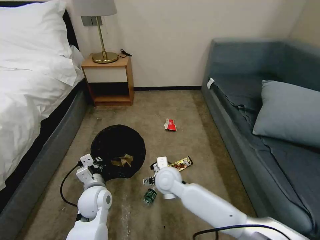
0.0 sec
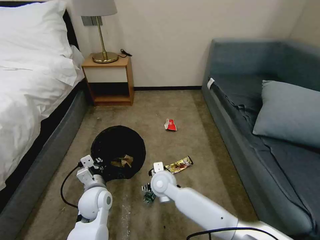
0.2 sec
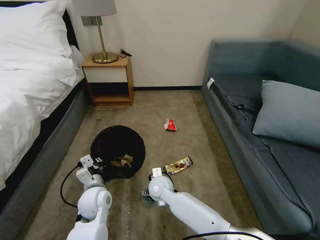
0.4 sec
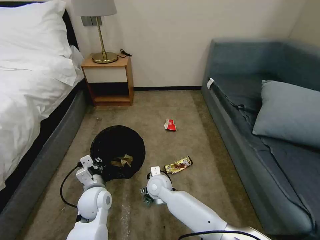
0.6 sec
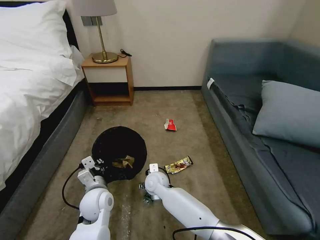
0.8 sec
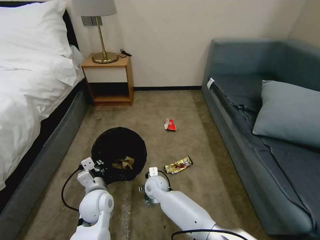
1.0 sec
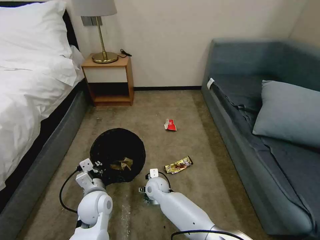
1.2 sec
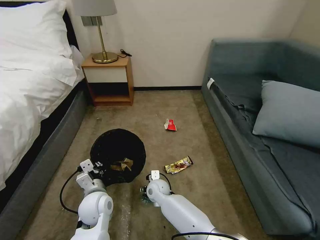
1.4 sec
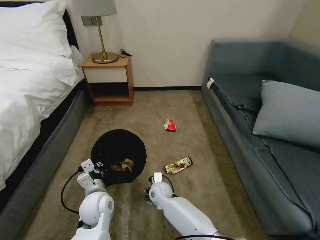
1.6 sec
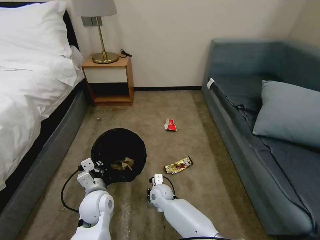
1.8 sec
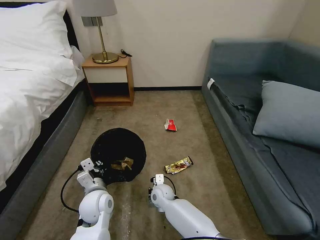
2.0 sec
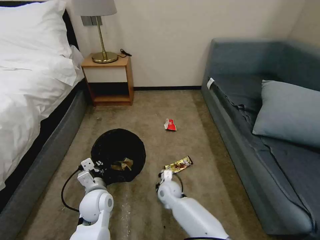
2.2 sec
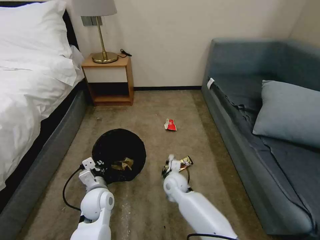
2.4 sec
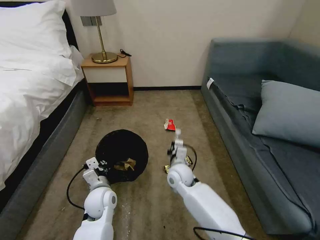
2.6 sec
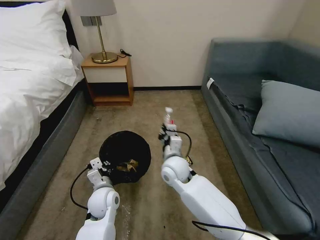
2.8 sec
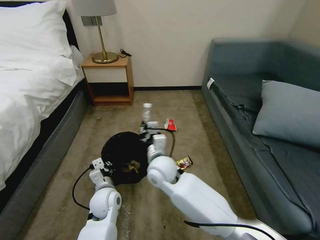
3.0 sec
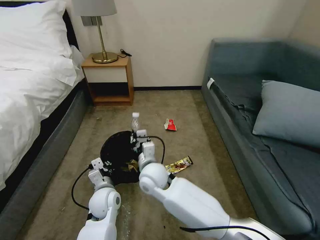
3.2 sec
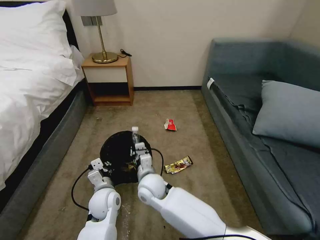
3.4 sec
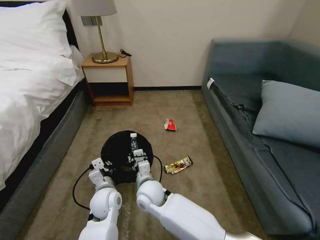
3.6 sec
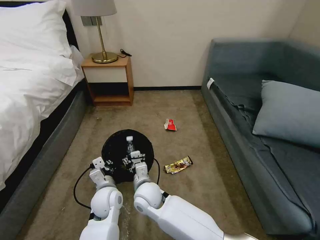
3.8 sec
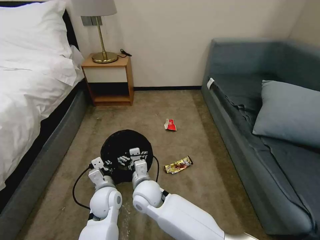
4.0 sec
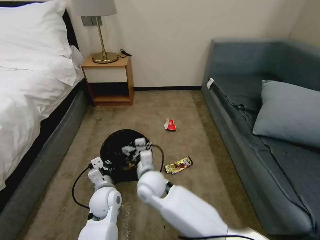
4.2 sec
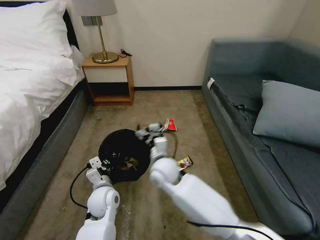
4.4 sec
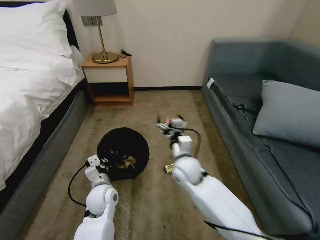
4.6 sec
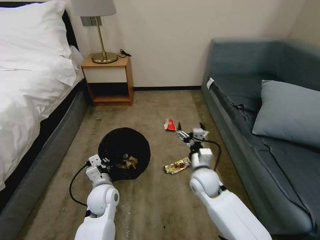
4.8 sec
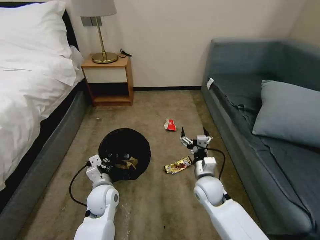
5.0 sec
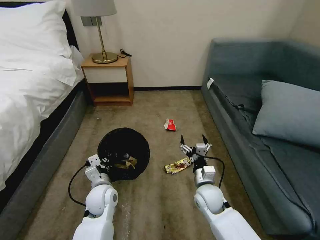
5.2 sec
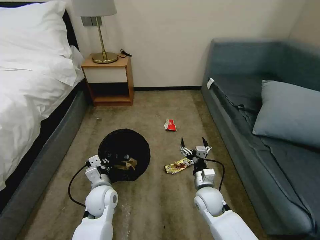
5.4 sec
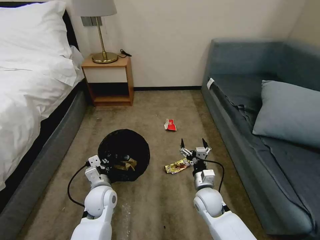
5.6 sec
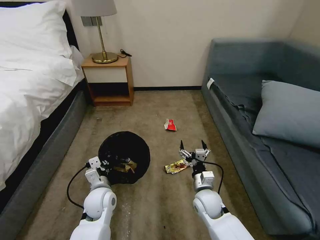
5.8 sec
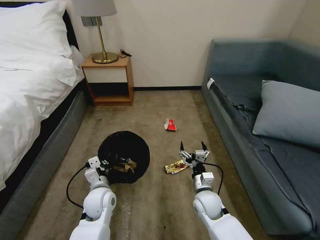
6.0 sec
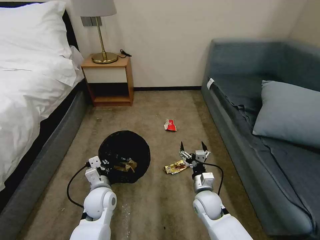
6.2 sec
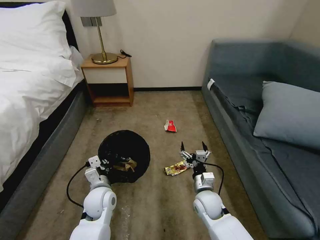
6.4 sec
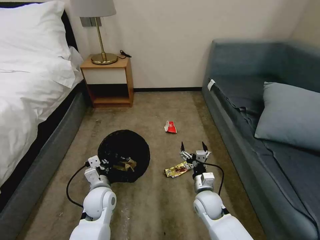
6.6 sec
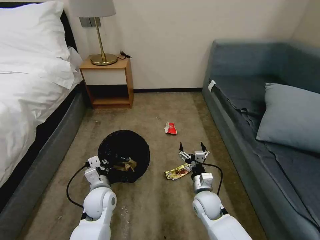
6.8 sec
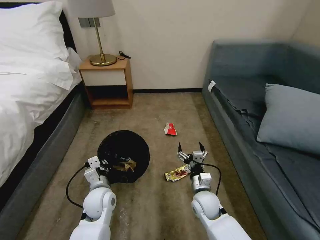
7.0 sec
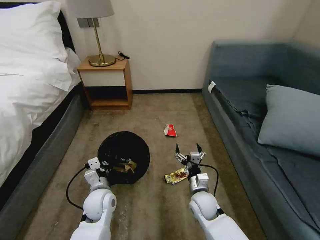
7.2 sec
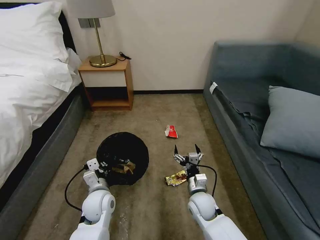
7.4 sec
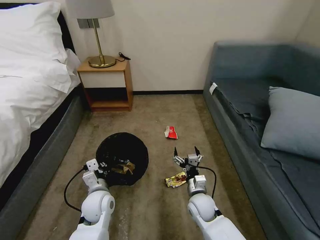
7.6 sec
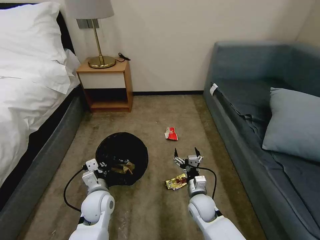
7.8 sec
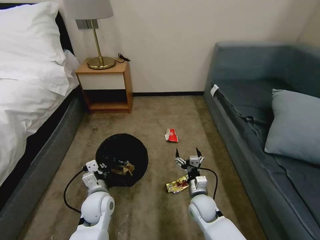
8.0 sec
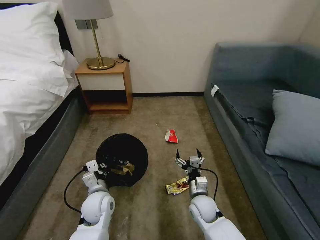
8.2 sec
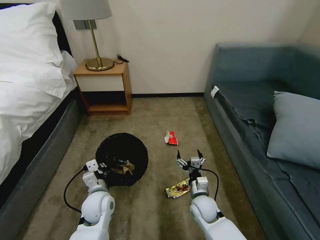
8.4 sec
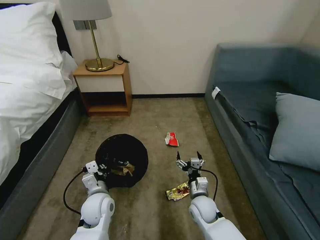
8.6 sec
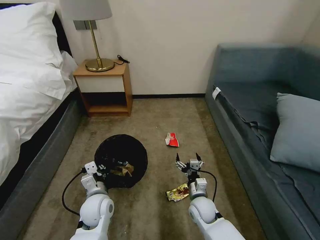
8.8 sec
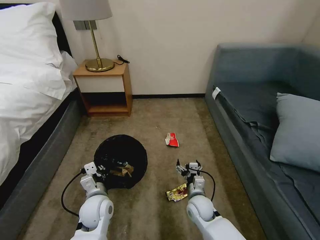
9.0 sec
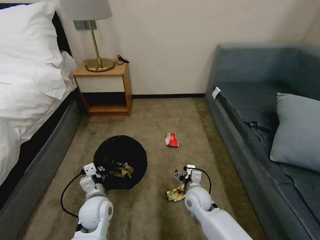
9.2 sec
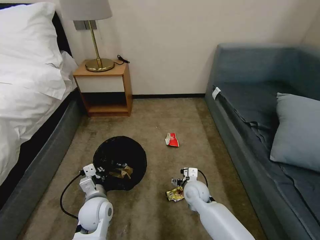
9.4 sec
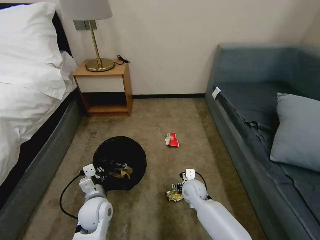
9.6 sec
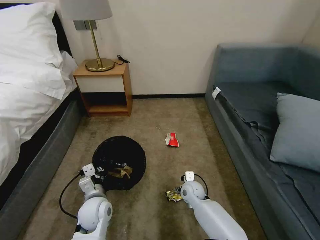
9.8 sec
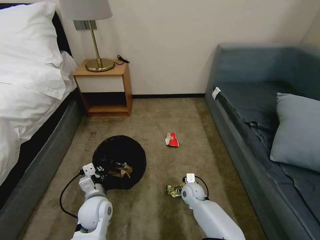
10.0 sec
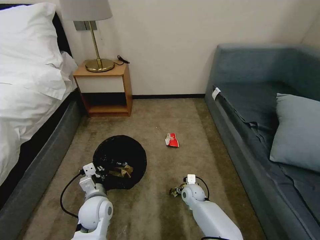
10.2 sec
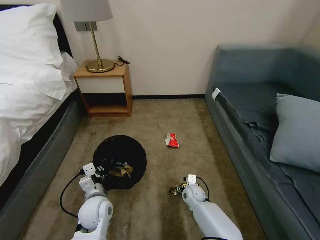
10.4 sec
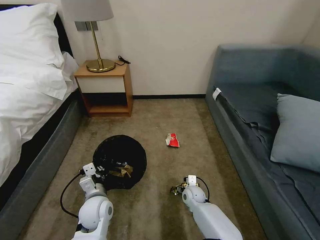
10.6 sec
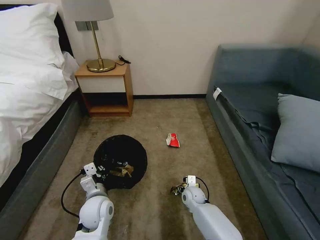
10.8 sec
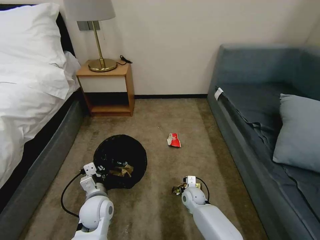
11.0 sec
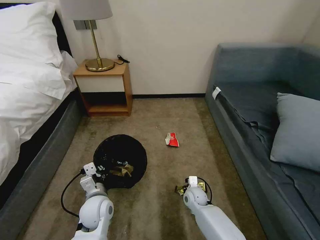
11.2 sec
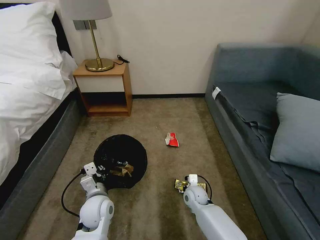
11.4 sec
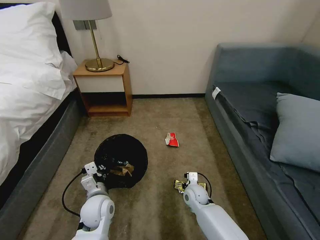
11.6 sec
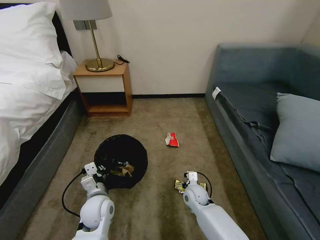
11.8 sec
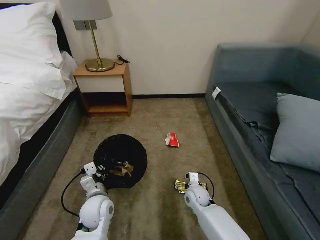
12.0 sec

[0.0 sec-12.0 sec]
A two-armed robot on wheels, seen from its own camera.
Task of the whole recording: Pick up the trash bin, then pick up the garbage on the floor and place it into the trash bin.
0.0 sec to 1.6 sec: The right gripper is displaced downward by some 15 cm, and closes.
1.6 sec to 3.0 sec: The right gripper is displaced upward by about 20 cm, and closes.
3.0 sec to 4.4 sec: The right gripper moves about 10 cm downward and comes back, and opens its fingers.
4.4 sec to 6.0 sec: The right gripper is displaced to the right, downward and backward by approximately 20 cm.
6.0 sec to 7.6 sec: The grippers stay close to where they were, moving slightly.
7.6 sec to 9.0 sec: The grippers make only small movements.
9.0 sec to 10.4 sec: The right gripper heads forward and downward, covering approximately 10 cm.
10.4 sec to 12.0 sec: The right gripper changes place by some 5 cm, and closes.

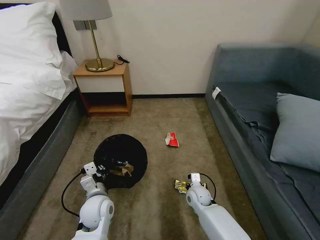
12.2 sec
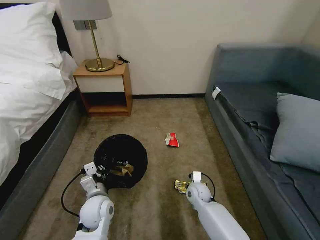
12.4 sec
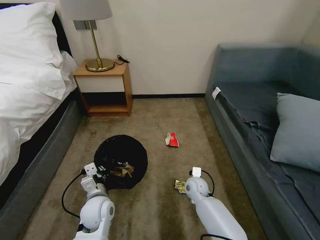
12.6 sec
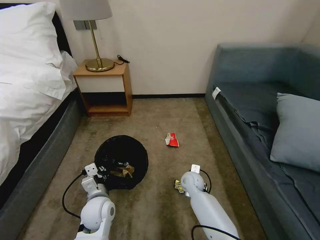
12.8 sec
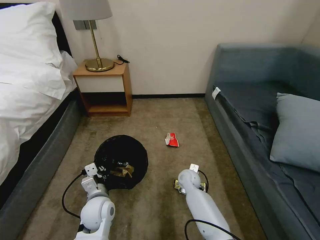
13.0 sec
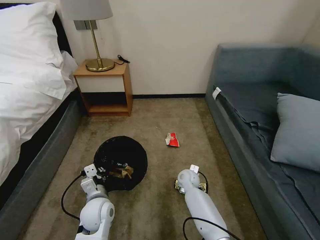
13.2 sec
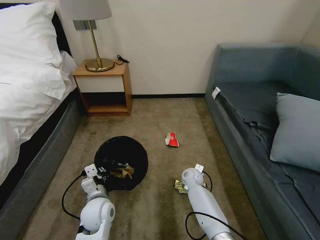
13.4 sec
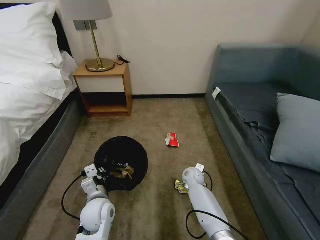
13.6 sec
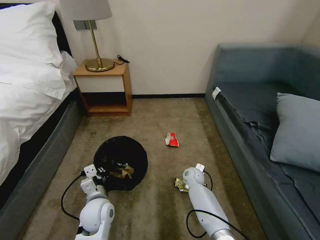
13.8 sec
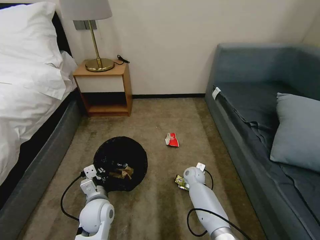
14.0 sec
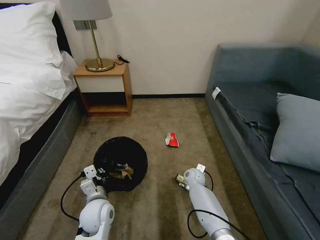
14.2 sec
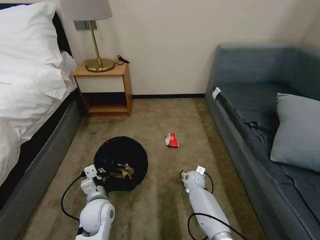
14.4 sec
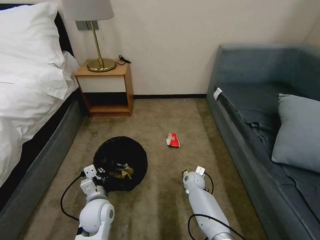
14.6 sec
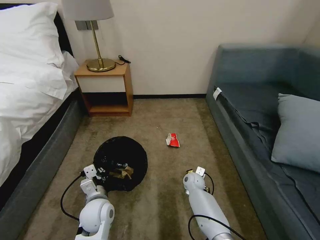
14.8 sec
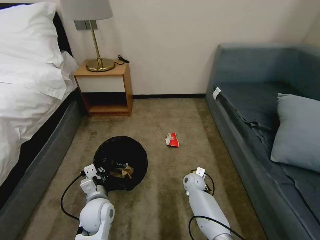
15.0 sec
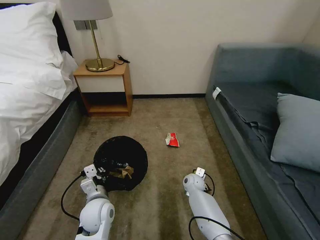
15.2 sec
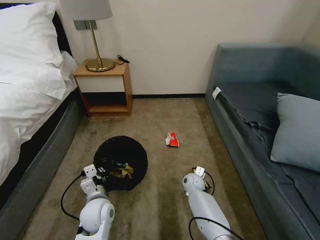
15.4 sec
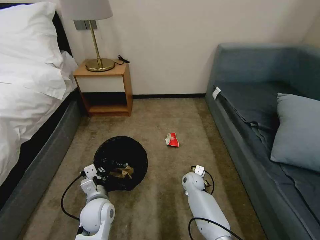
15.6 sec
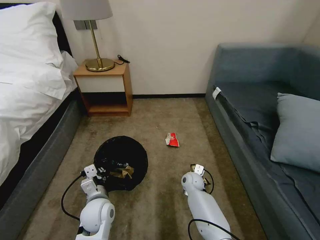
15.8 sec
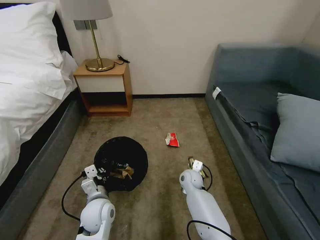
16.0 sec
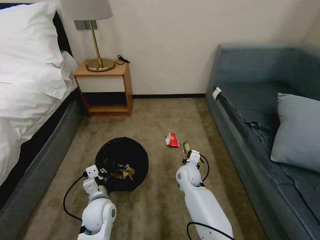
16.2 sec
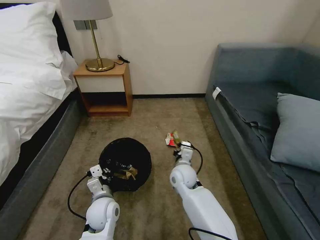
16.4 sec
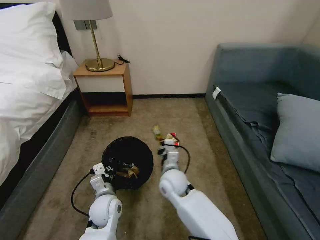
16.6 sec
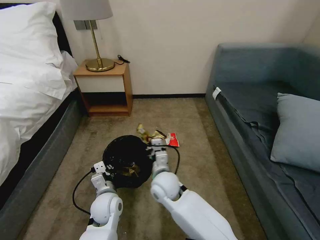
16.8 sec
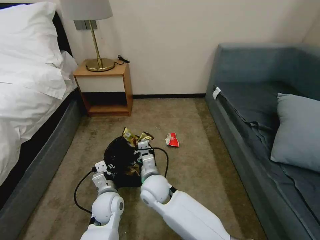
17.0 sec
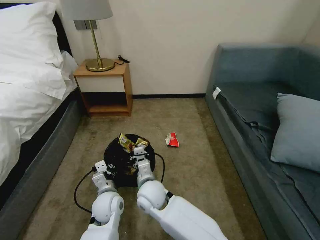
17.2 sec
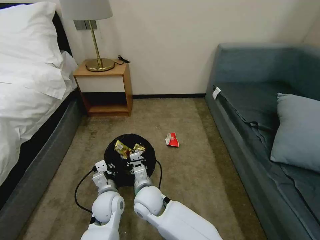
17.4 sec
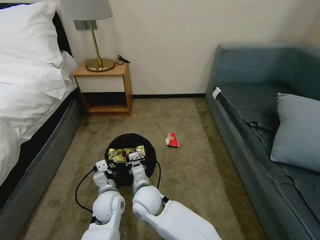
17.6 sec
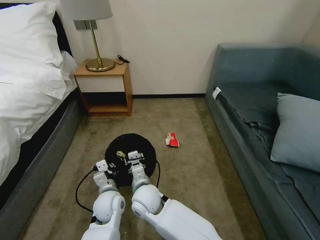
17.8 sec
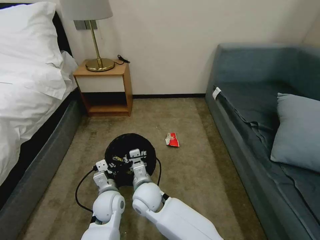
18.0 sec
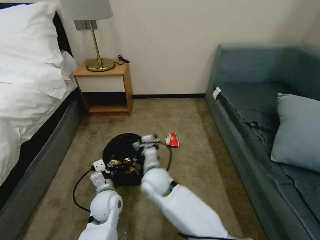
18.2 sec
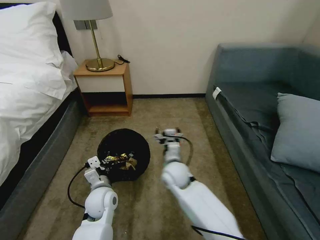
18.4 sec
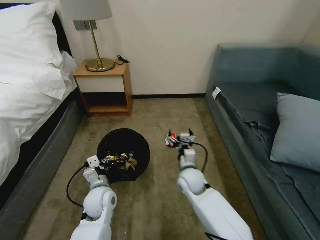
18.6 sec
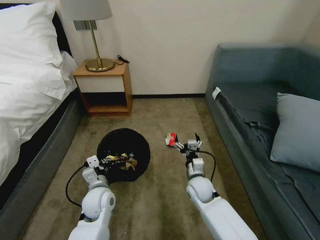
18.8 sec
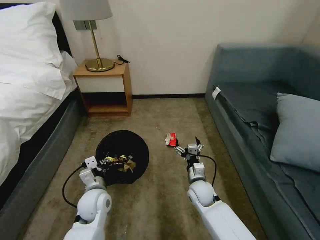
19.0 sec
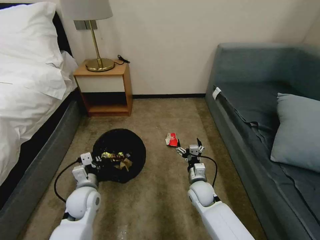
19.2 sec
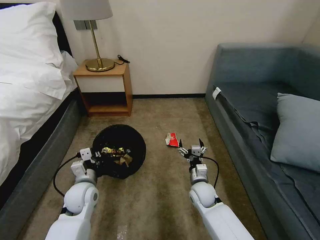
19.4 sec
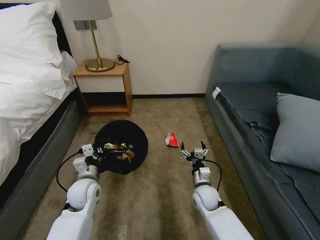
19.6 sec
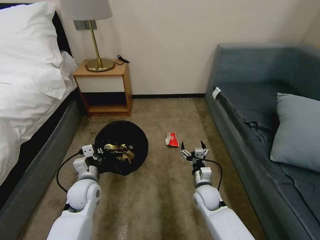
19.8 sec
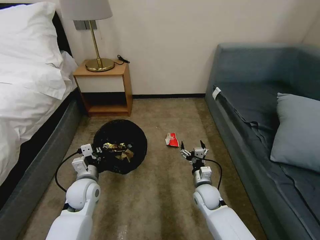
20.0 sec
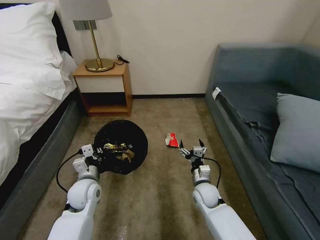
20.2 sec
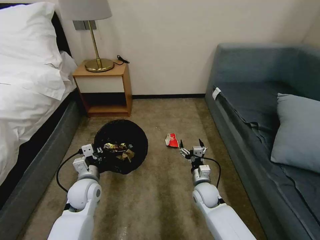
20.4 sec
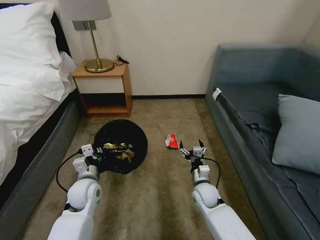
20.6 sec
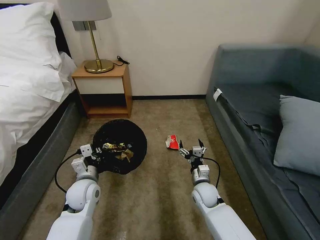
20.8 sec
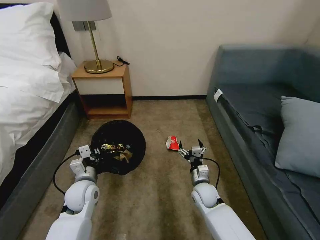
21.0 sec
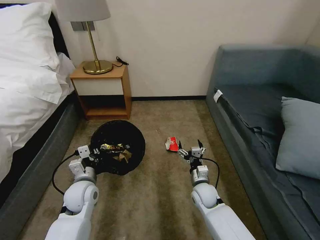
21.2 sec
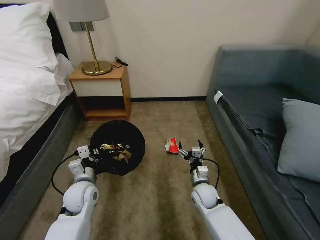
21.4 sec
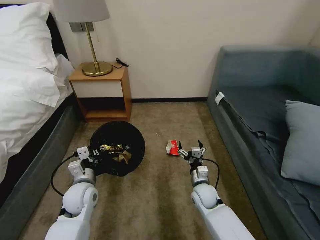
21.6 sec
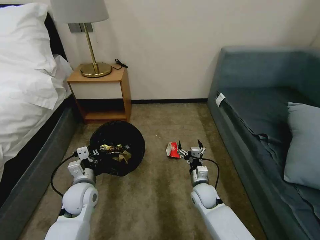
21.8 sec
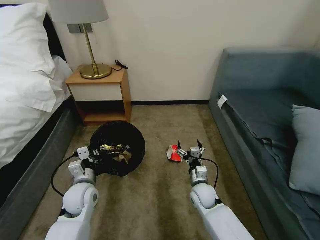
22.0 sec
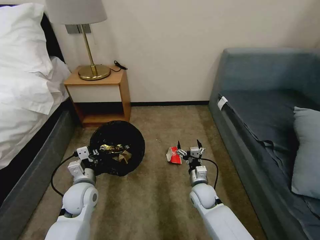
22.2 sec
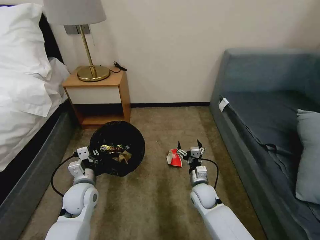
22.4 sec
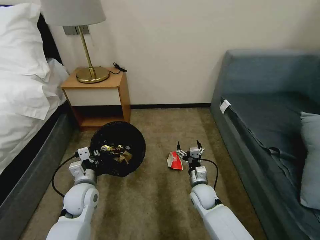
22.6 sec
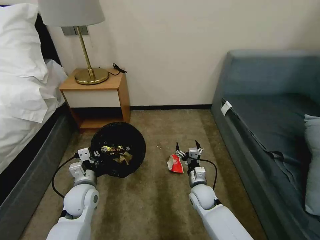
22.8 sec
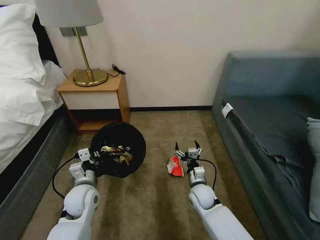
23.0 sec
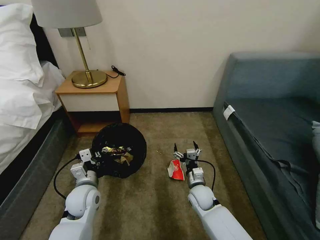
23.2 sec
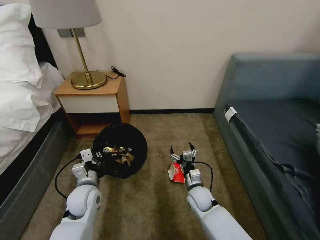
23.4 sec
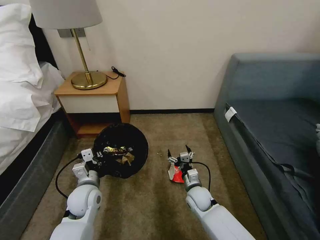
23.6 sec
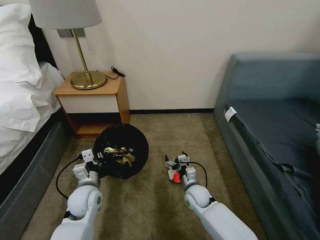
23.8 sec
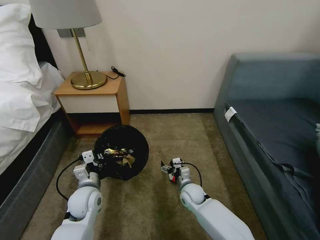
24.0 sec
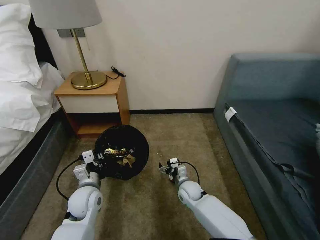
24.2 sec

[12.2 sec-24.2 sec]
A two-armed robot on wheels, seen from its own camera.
Task of the whole recording: Pick up the trash bin, then pick up the garbage on the floor and place it into the trash bin.
12.2 sec to 13.8 sec: The right gripper goes some 10 cm forward, and opens up.
13.8 sec to 15.2 sec: The right gripper closes its fingers.
15.2 sec to 16.6 sec: The right gripper heads upward and to the left, covering approximately 20 cm.
16.6 sec to 18.2 sec: The right gripper goes some 10 cm to the left, and opens its fingers.
18.2 sec to 19.8 sec: The left gripper is displaced to the left by approximately 10 cm; the right gripper is displaced to the right and downward by approximately 25 cm.
19.8 sec to 21.2 sec: Both grippers stay about where they are.
22.6 sec to 24.2 sec: The right gripper changes place by about 5 cm.
